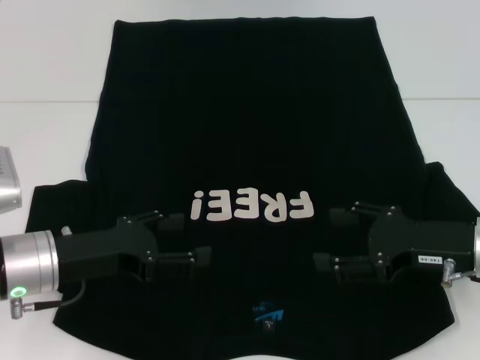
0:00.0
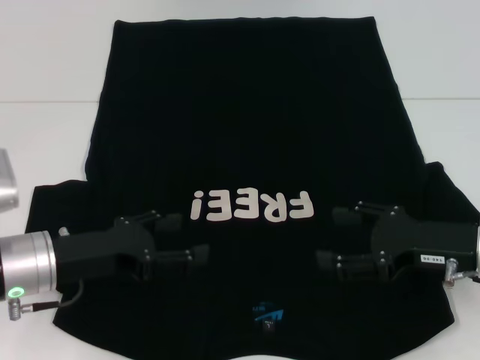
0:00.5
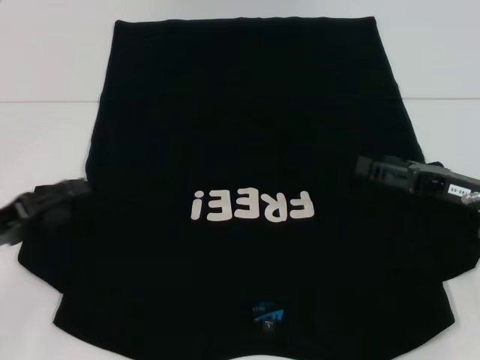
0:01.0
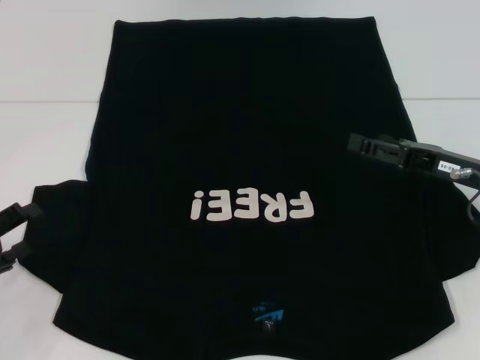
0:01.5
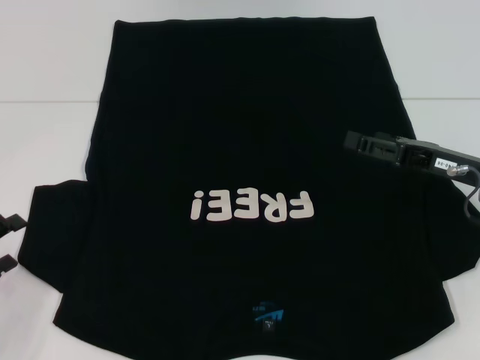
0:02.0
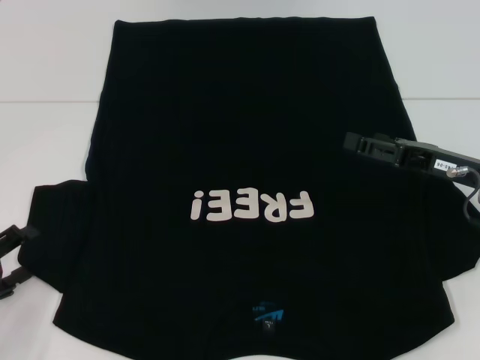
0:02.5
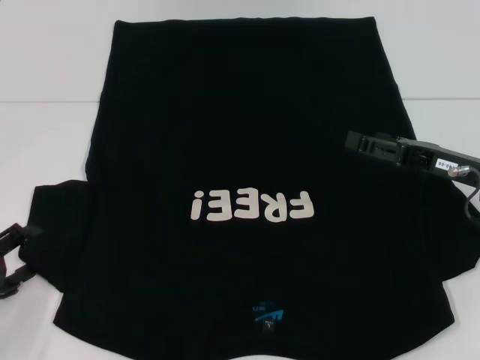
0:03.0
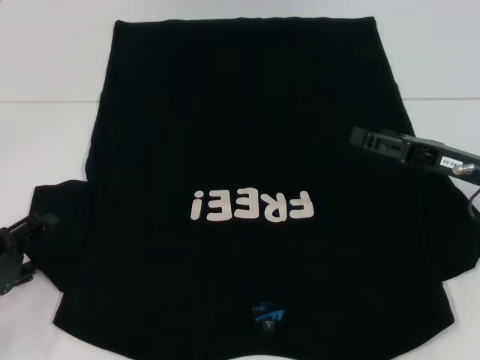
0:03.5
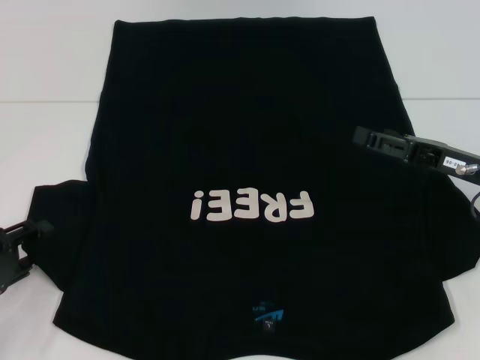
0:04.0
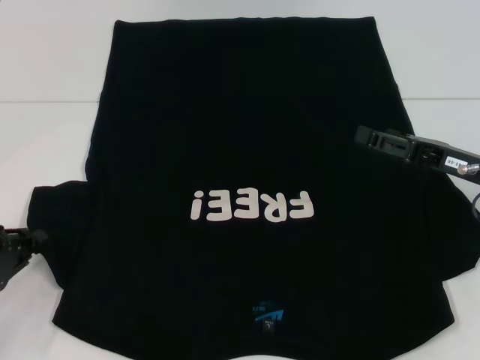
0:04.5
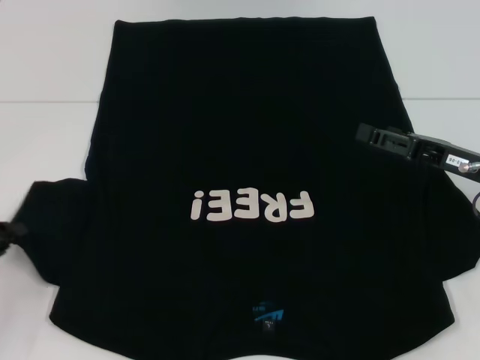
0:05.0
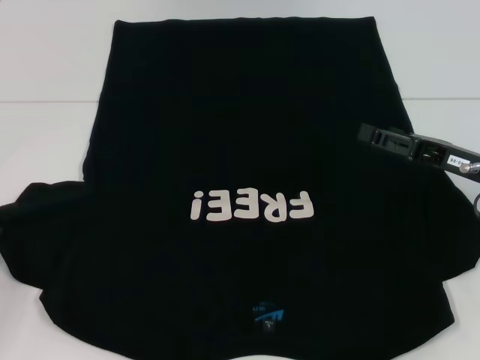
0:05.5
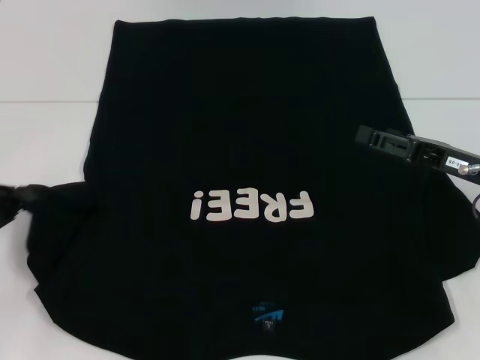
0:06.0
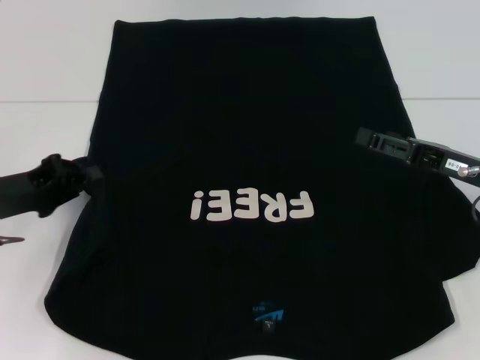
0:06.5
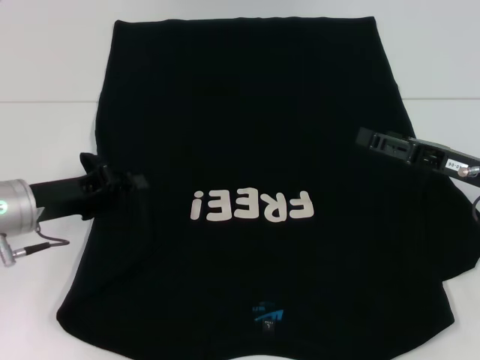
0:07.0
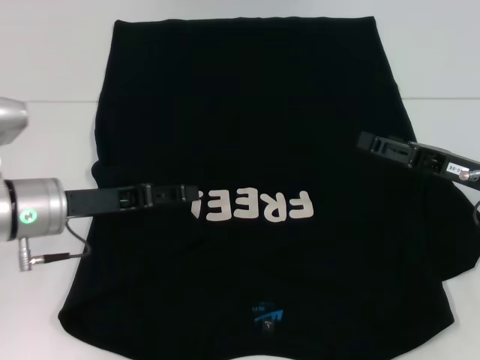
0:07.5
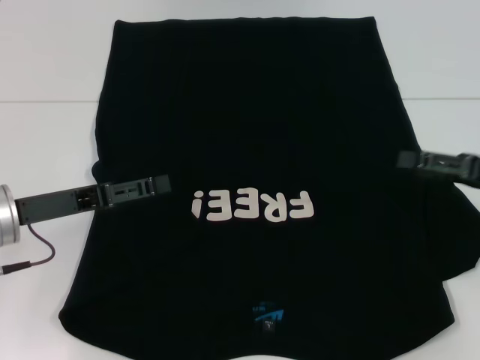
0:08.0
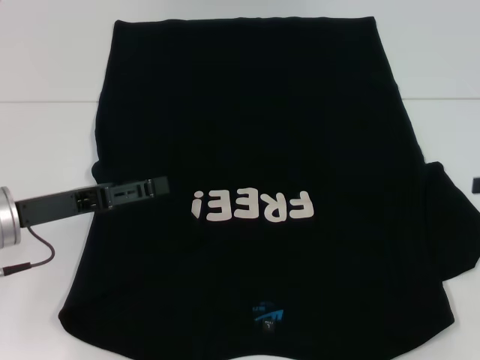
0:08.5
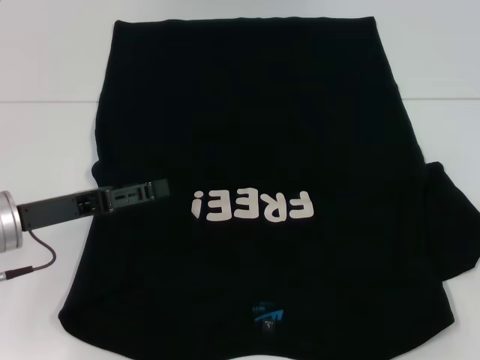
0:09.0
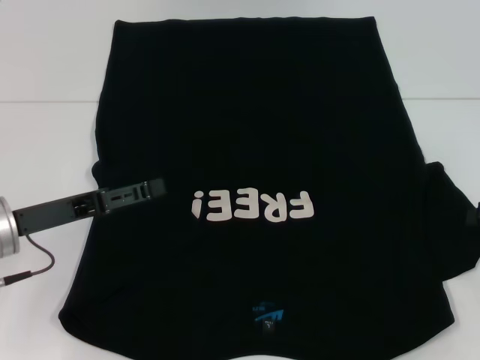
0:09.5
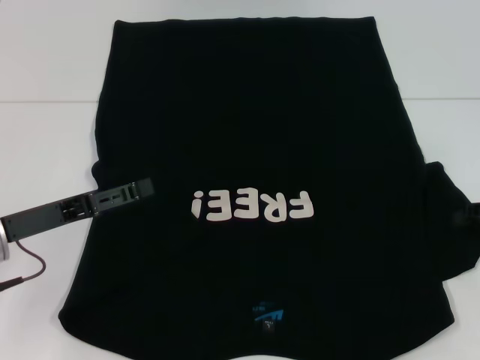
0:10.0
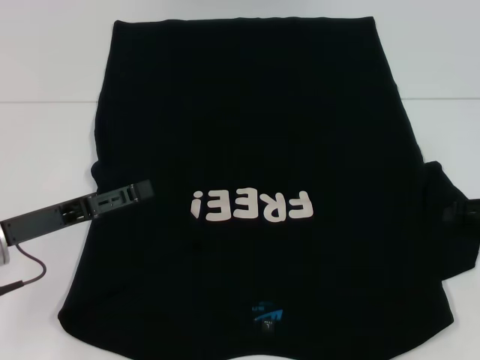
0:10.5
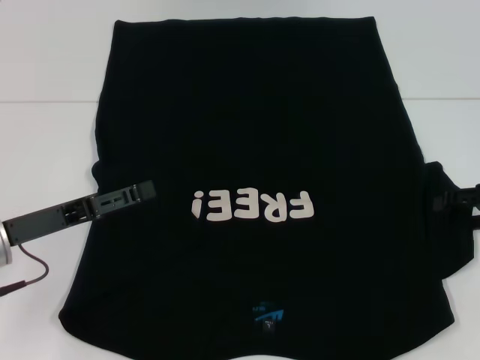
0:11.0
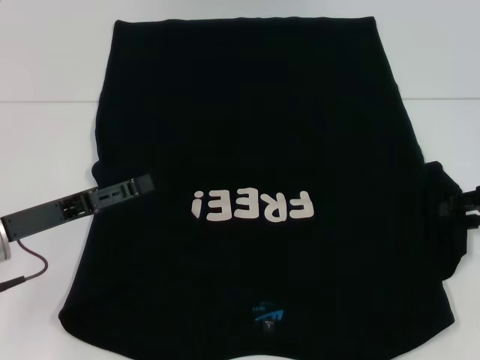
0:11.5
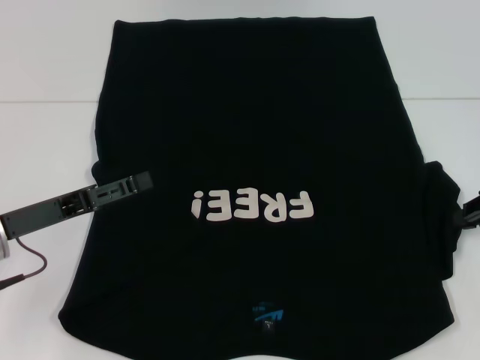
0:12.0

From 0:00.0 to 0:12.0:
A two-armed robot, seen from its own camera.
Step, from 0:00.0 to 0:07.5: Fold the bottom left sleeve with your left hand.
From 0:00.0 to 0:02.0: The left gripper moves to the left and backward, about 15 cm. The right gripper ends up roughly 5 cm from where it was.
From 0:02.0 to 0:04.0: The grippers move only a little.
From 0:04.0 to 0:06.0: The left gripper moves upward, approximately 5 cm, and closes its fingers.
From 0:06.0 to 0:08.0: The right gripper travels to the right by approximately 5 cm. The left gripper travels to the right by about 10 cm, and opens up.
From 0:10.0 to 0:12.0: The right gripper closes.

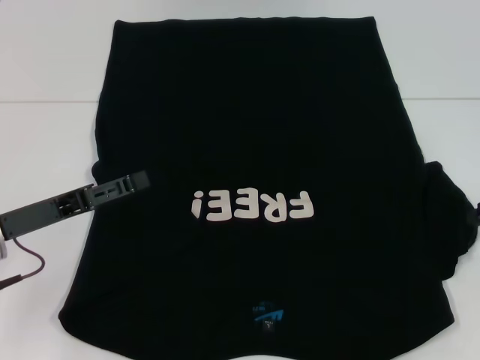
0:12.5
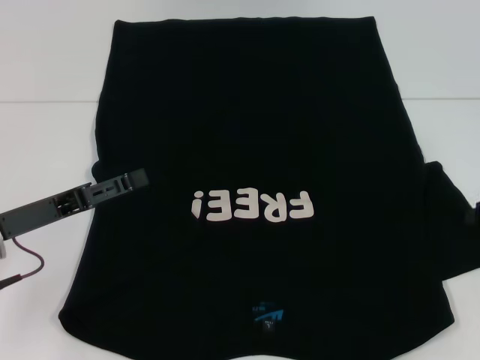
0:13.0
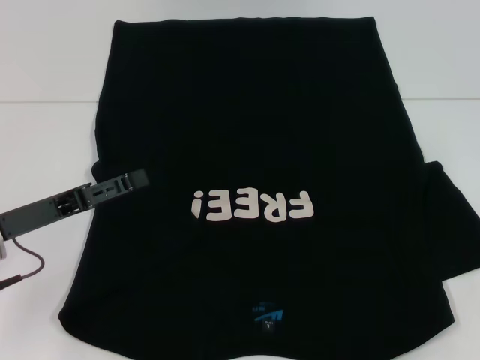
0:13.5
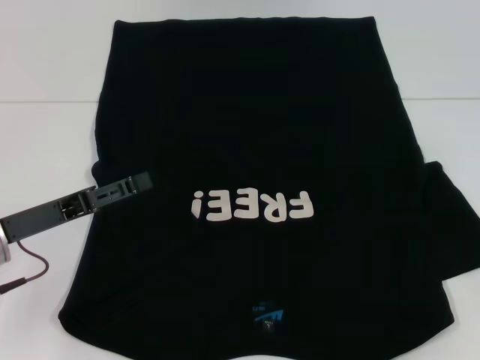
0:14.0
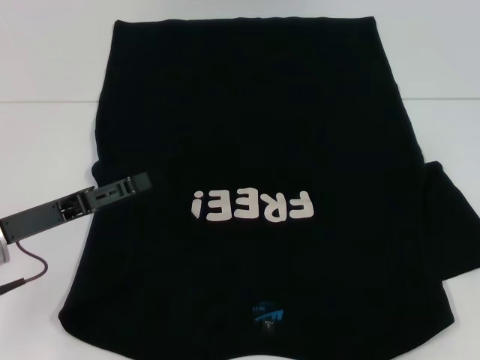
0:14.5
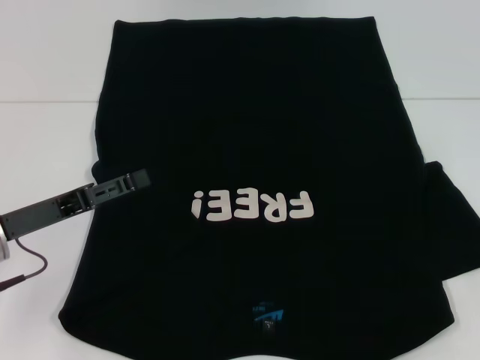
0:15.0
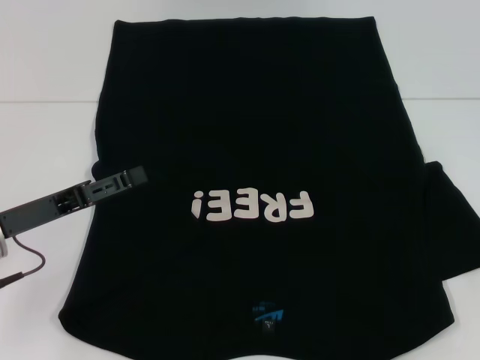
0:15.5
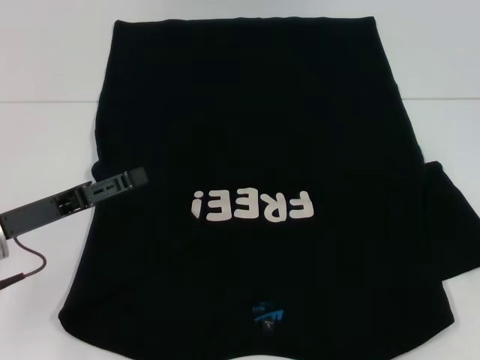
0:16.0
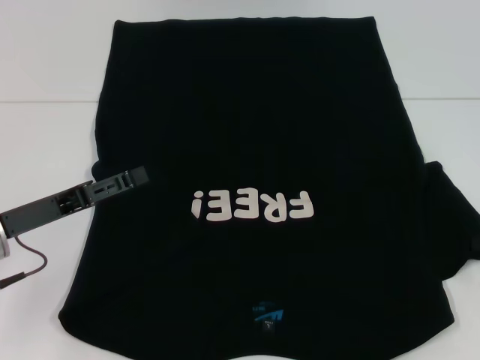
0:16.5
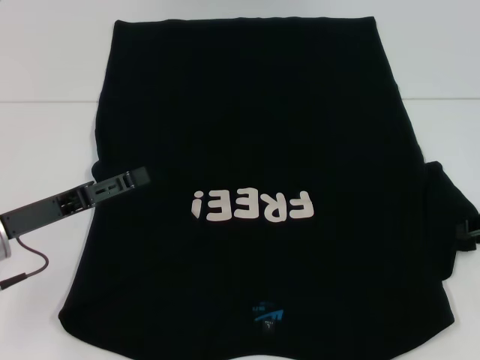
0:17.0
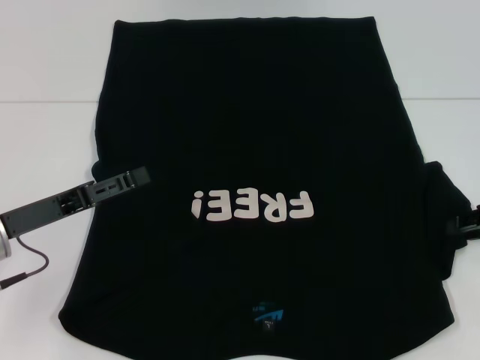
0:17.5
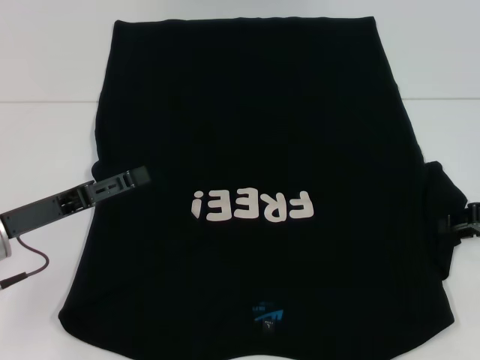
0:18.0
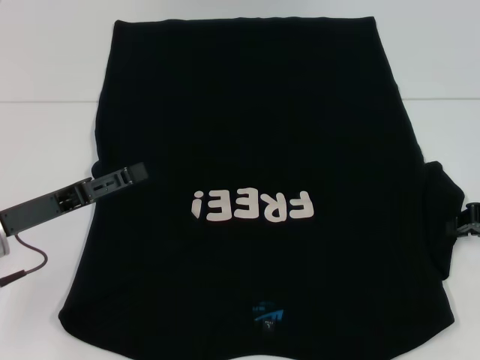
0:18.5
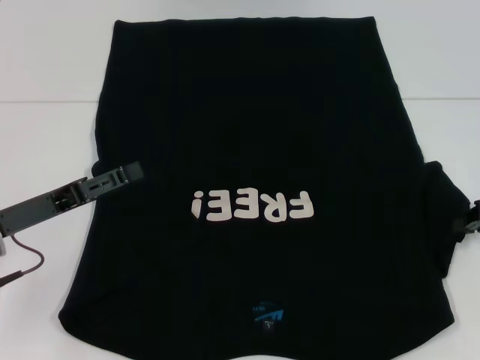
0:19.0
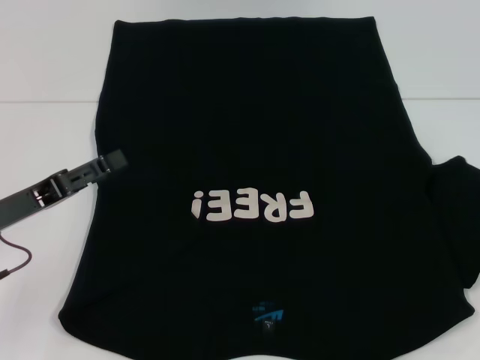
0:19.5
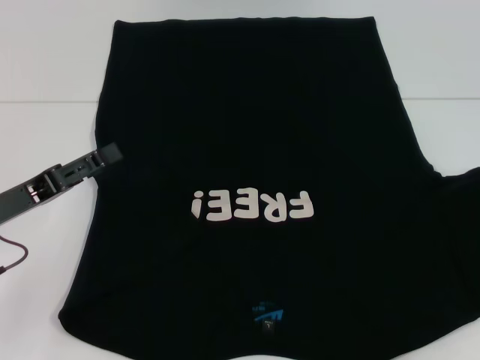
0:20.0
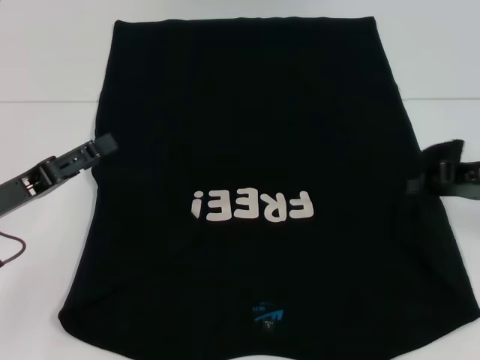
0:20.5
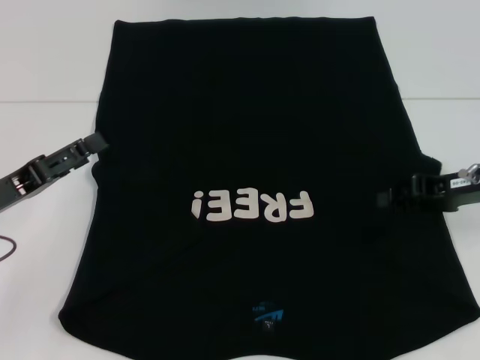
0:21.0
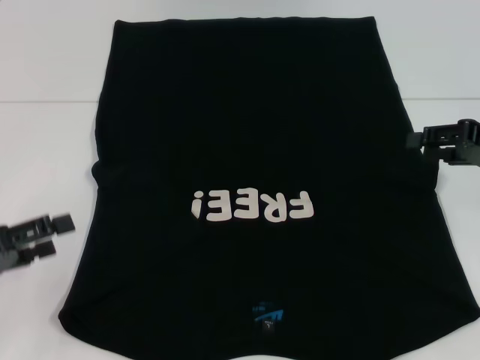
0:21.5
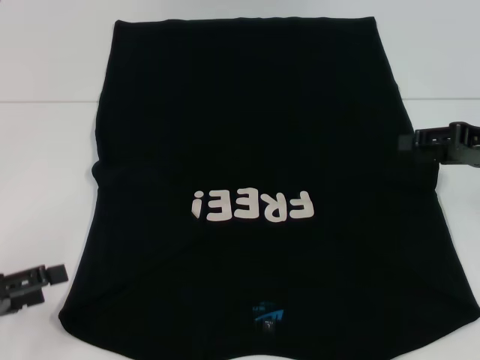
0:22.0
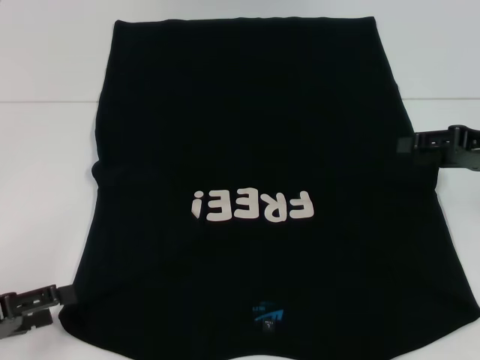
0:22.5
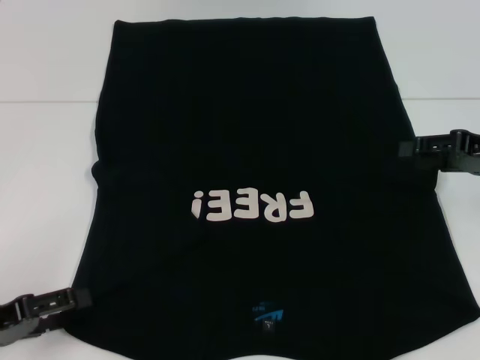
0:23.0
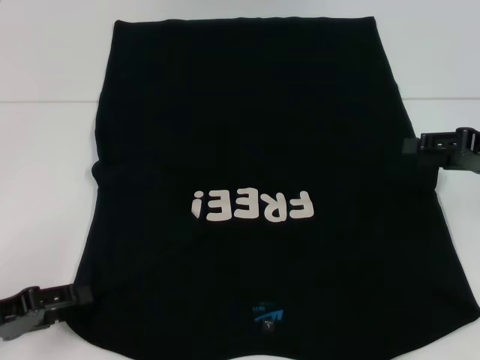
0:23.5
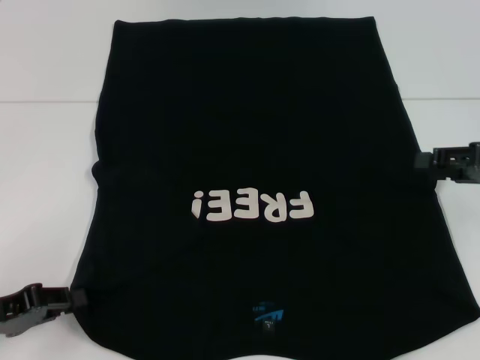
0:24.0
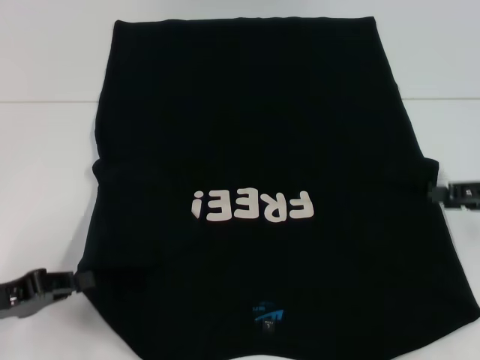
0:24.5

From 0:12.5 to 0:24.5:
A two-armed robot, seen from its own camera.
Step, from 0:12.5 to 0:21.0: Fold the bottom right sleeve with your right hand.
From 0:14.5 to 0:18.5: The grippers make only small movements.
From 0:20.5 to 0:22.5: The left gripper travels backward by some 10 cm, while the right gripper opens up.
From 0:22.5 to 0:24.5: The left gripper closes up. The right gripper moves about 5 cm.

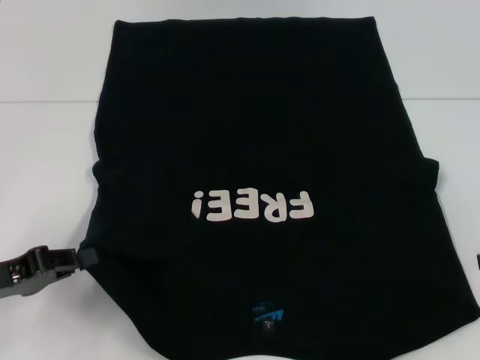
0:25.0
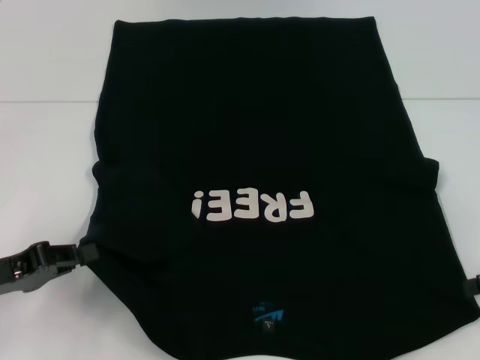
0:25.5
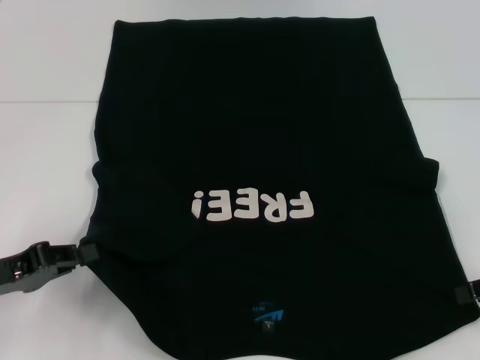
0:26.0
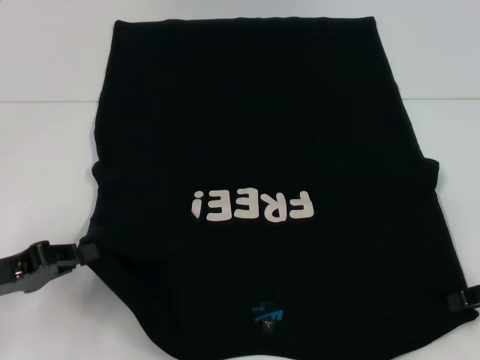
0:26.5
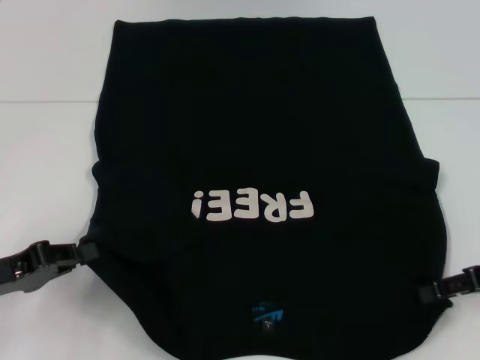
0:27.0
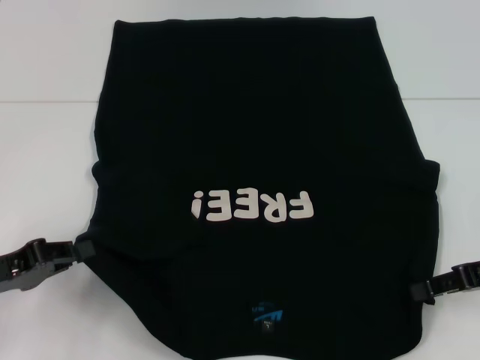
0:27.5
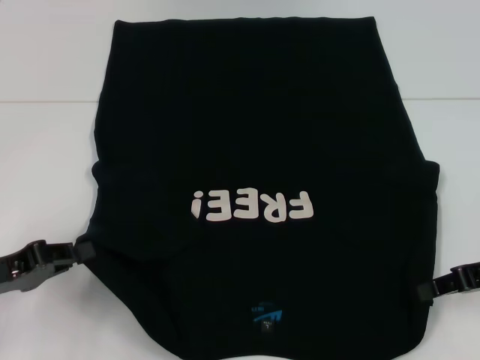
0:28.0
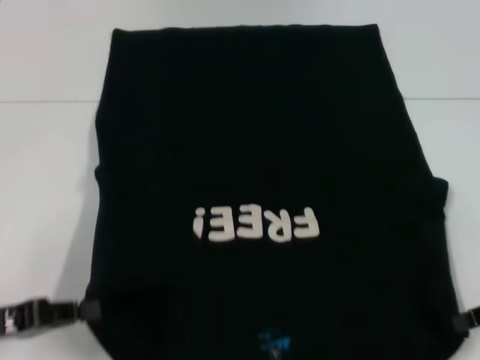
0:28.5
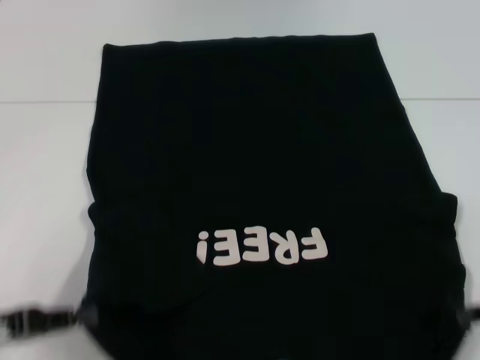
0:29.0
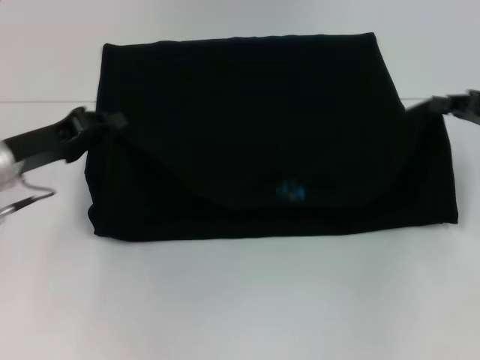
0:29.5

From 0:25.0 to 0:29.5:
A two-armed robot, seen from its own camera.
Step, from 0:25.5 to 0:27.5: Grab the bottom right corner with your right hand.
From 0:25.0 to 0:27.0: The right gripper shifts roughly 5 cm to the left.
From 0:27.0 to 0:29.5: The two grippers go some 10 cm forward. The right gripper closes up.
